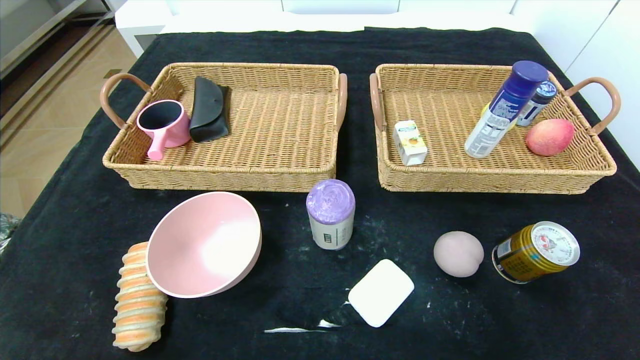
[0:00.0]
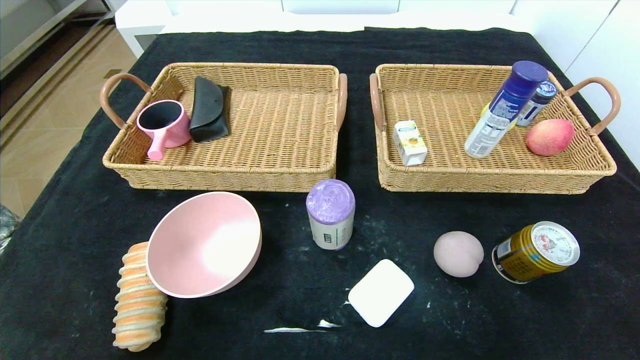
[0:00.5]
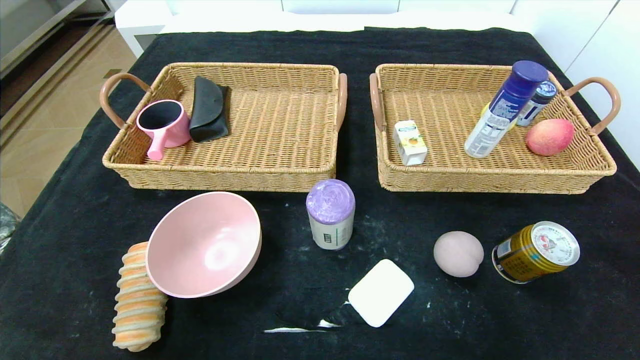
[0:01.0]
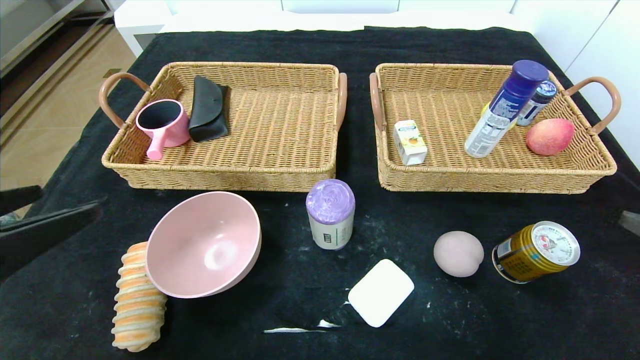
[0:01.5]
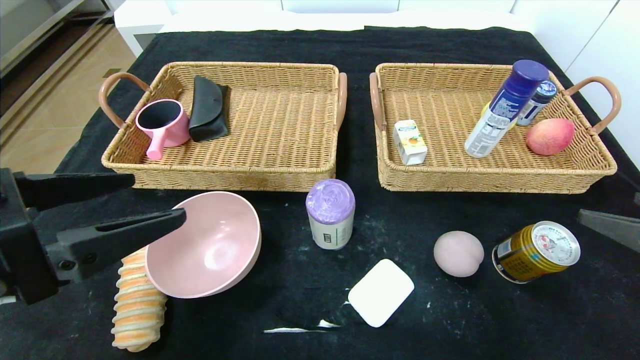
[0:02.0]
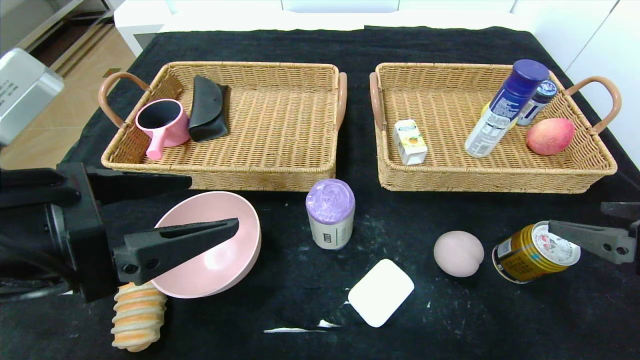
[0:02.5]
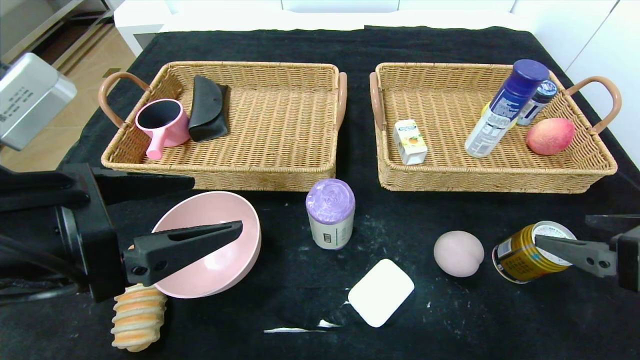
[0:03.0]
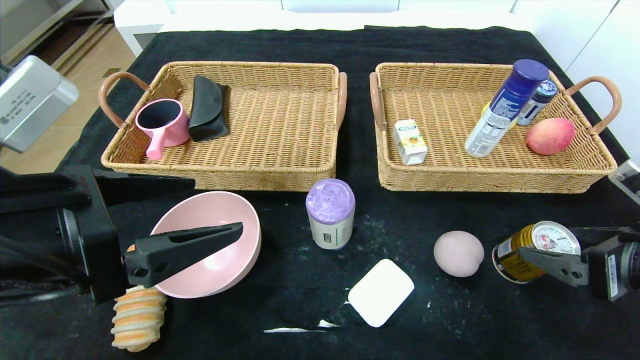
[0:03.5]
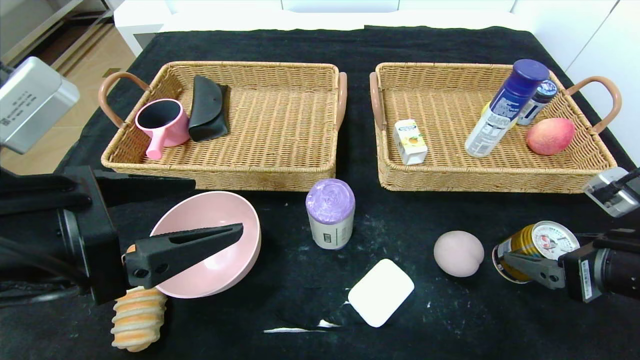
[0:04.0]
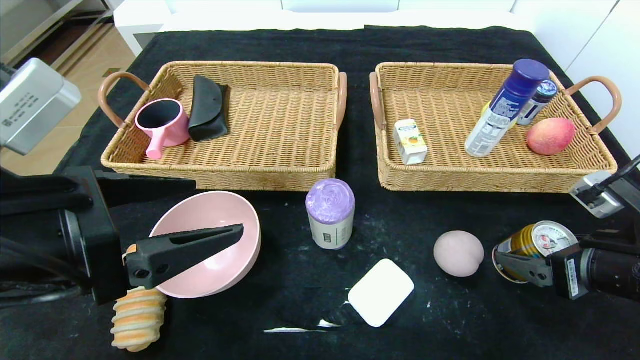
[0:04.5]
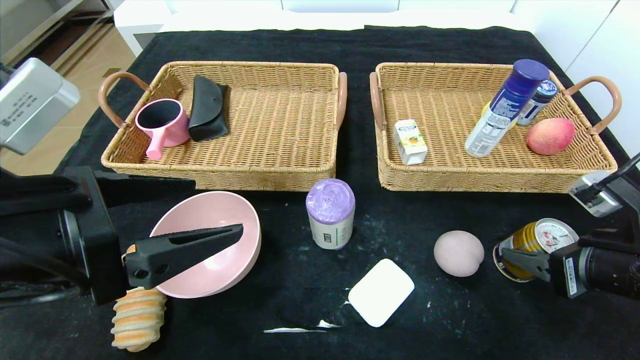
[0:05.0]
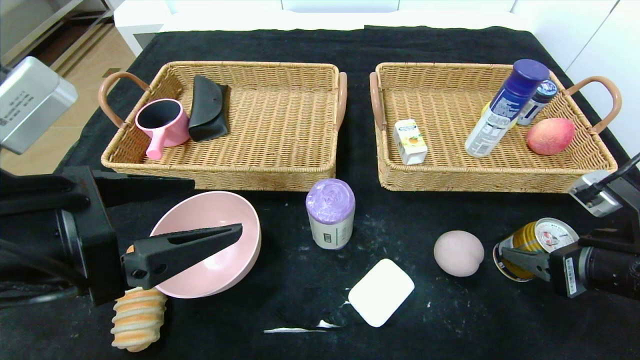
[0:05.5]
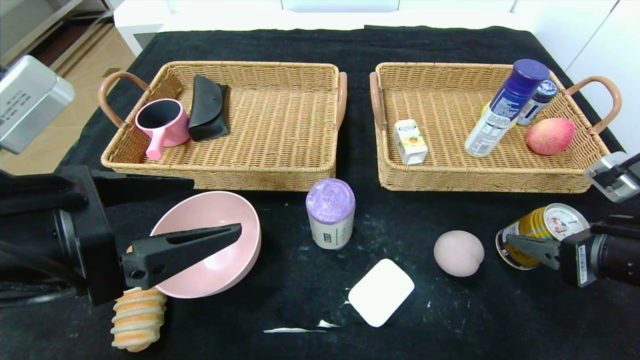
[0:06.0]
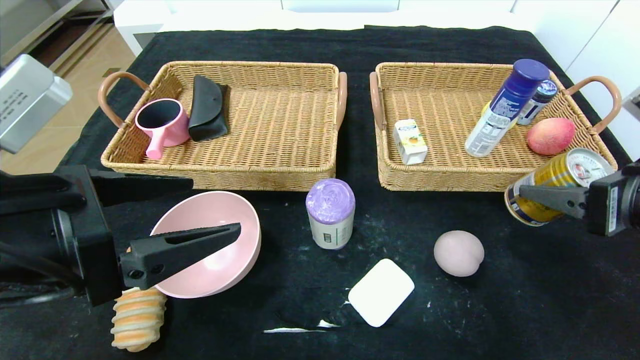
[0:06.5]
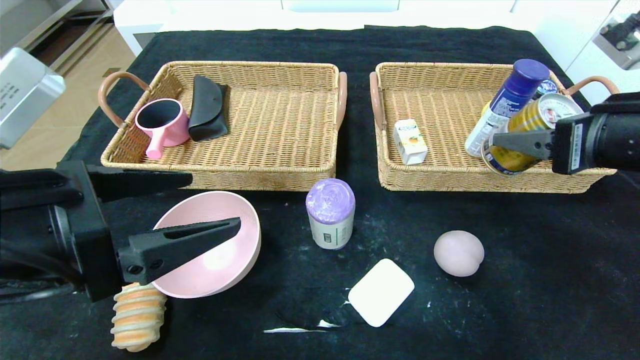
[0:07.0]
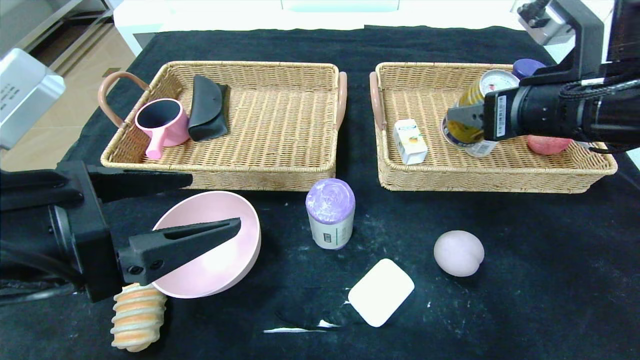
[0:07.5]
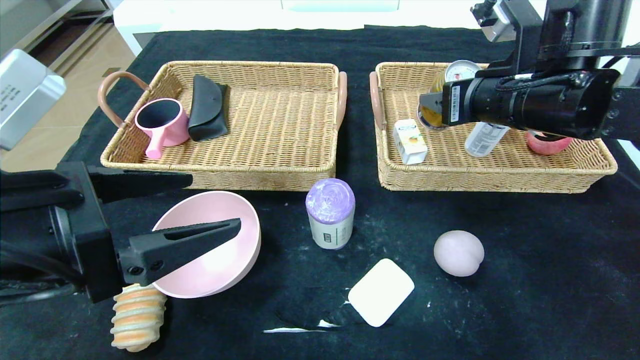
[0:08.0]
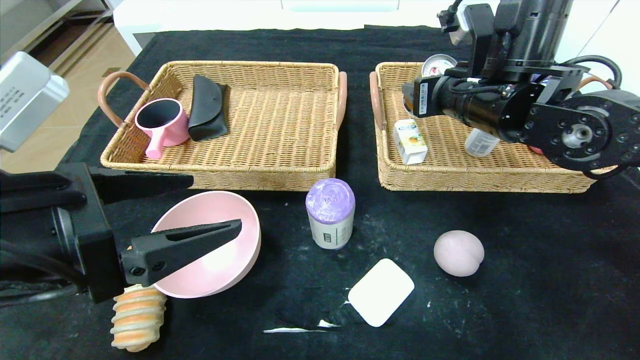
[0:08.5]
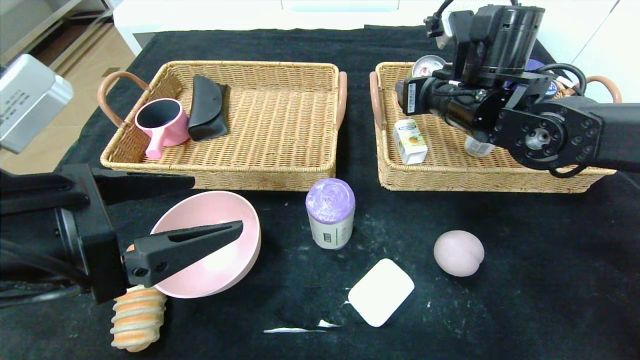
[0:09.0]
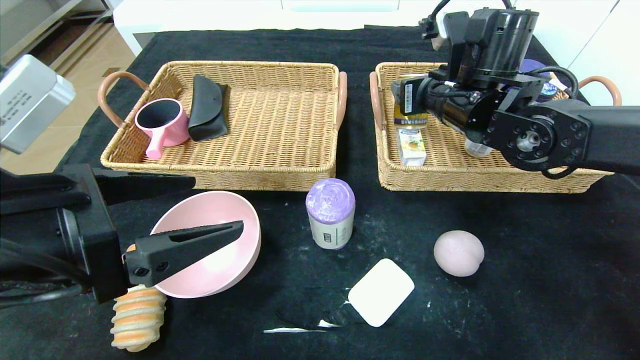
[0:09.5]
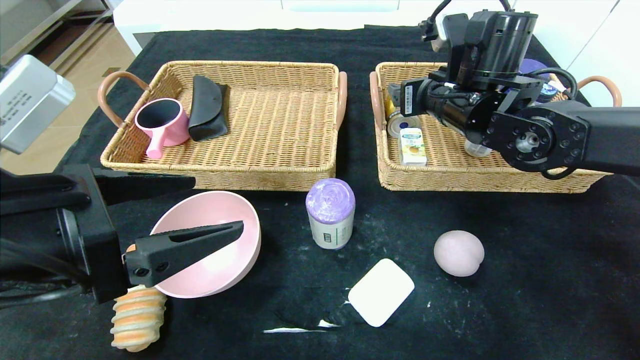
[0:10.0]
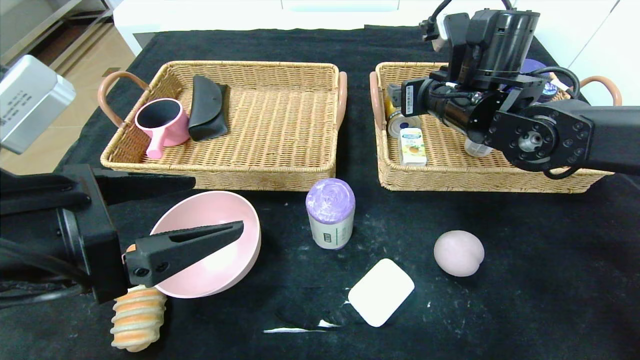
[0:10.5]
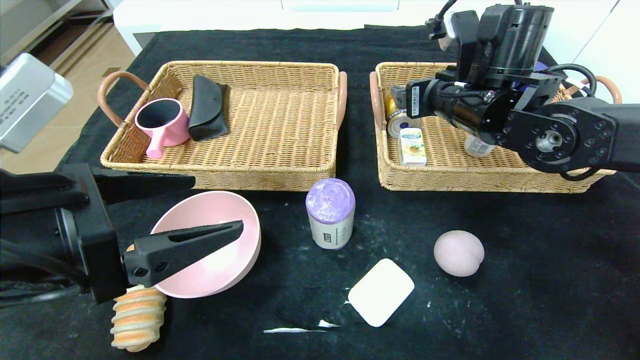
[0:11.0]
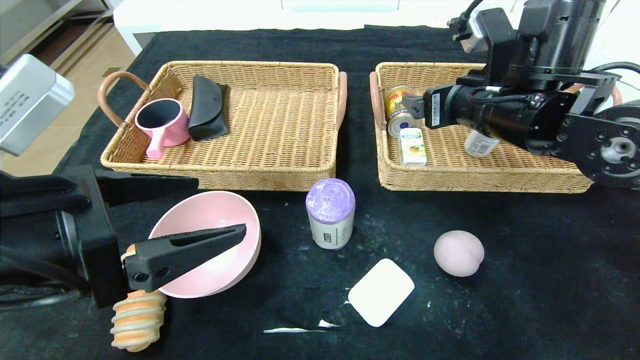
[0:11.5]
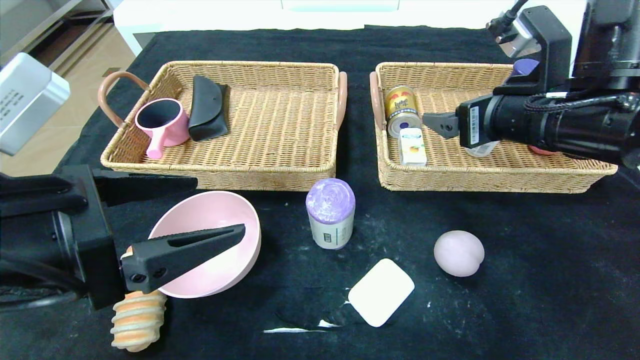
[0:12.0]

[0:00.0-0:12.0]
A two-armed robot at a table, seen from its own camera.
Step, 0:00.0 to 0:09.5: Grasp the Red Bull and put it in the right basket.
0:00.0 to 0:02.0: The two grippers go roughly 25 cm upward and forward.
0:02.0 to 0:04.0: The right gripper heads downward, covering approximately 5 cm.
0:04.0 to 0:06.0: The grippers make only small movements.
0:06.0 to 0:08.0: The right gripper heads forward, to the left and upward, covering roughly 20 cm.
0:08.0 to 0:10.0: The right gripper goes approximately 5 cm forward.
0:10.0 to 0:12.0: The right gripper shifts approximately 10 cm backward and to the right.

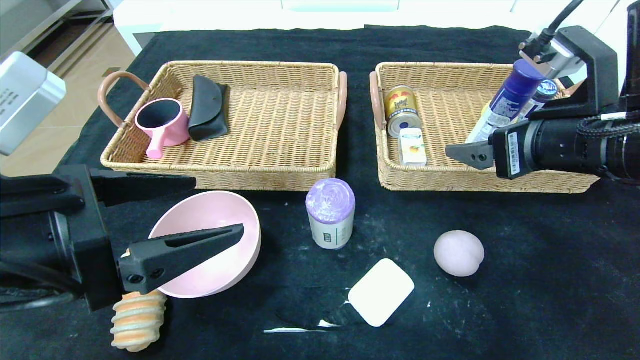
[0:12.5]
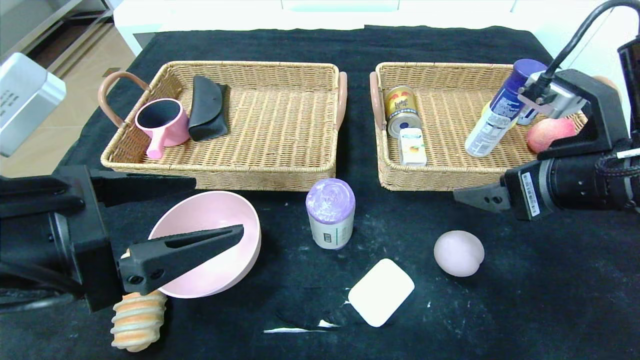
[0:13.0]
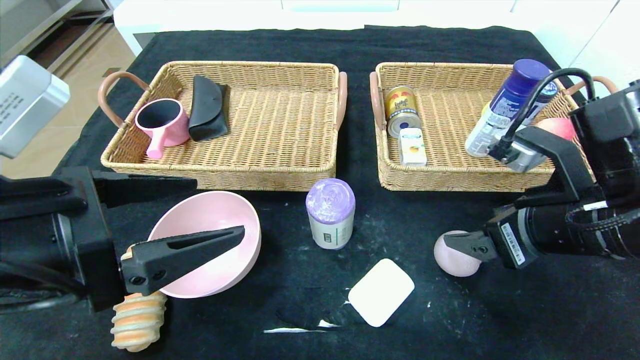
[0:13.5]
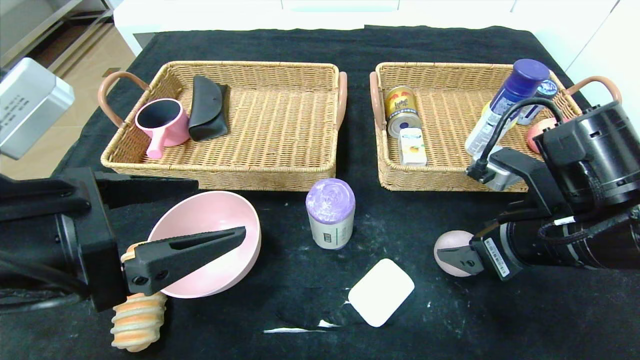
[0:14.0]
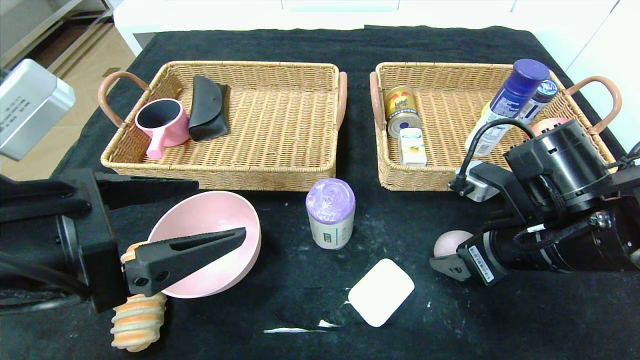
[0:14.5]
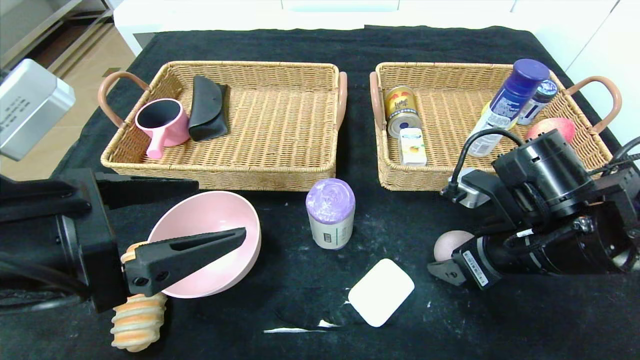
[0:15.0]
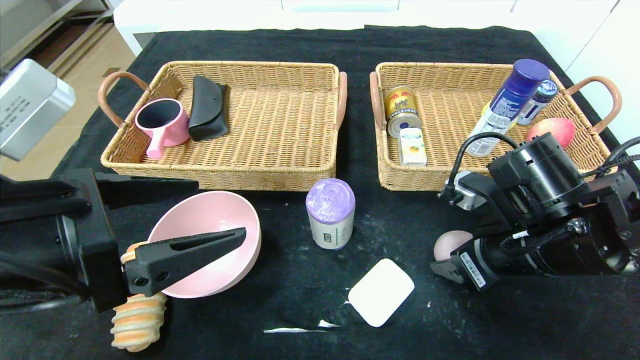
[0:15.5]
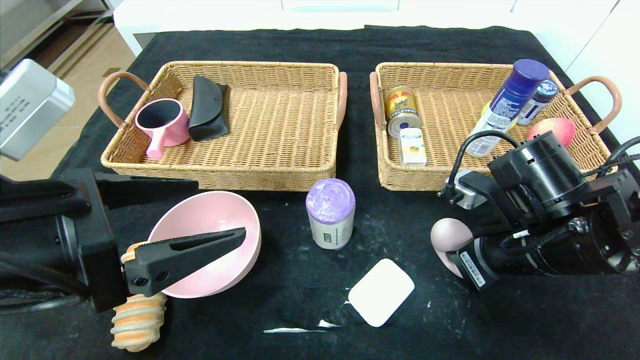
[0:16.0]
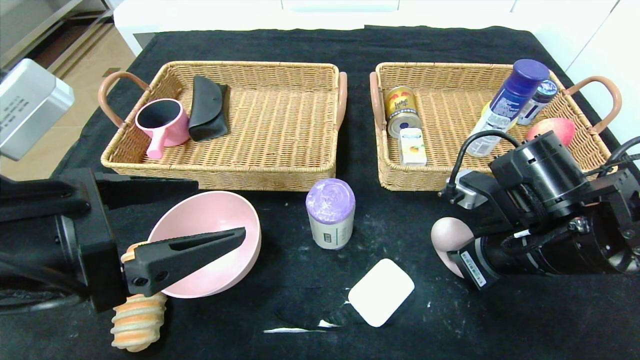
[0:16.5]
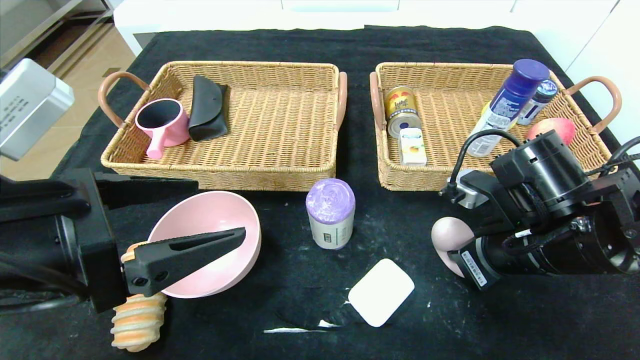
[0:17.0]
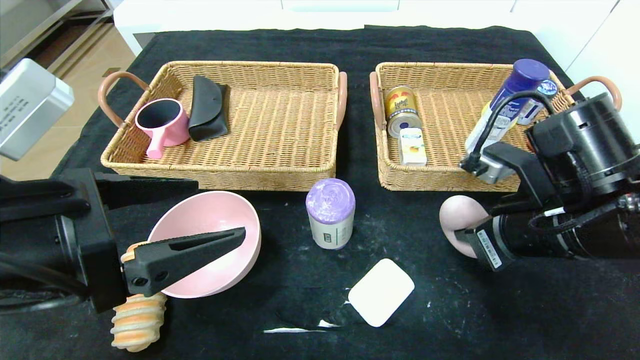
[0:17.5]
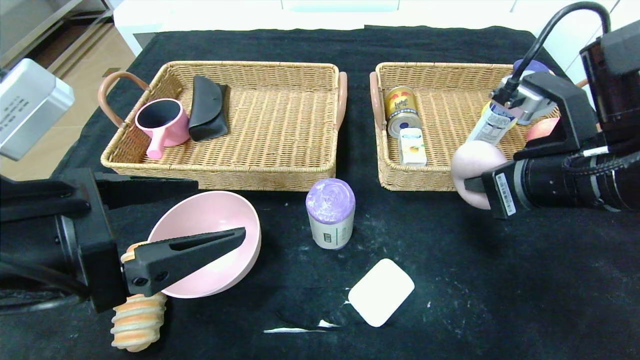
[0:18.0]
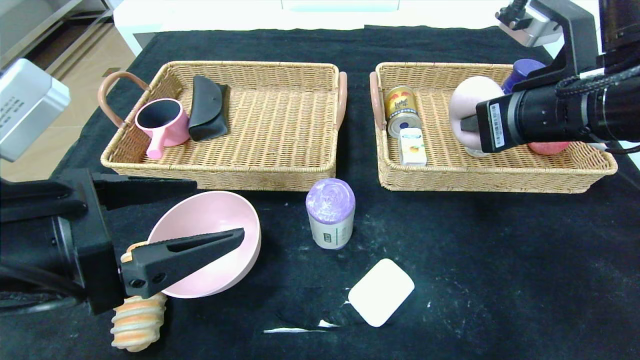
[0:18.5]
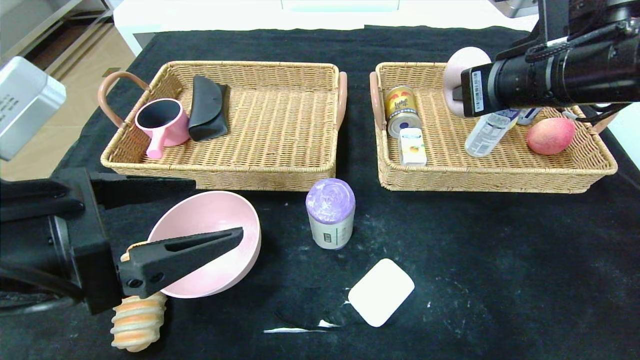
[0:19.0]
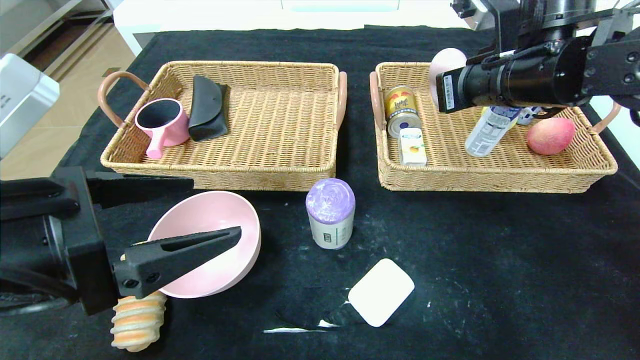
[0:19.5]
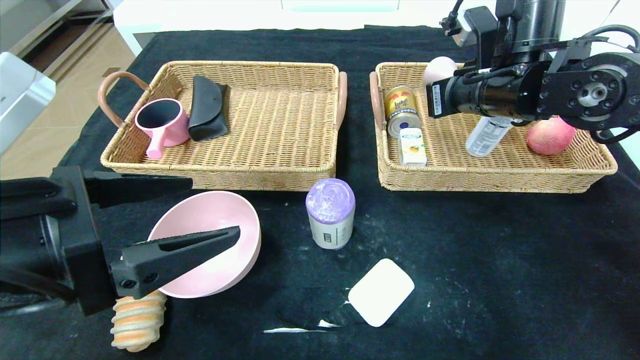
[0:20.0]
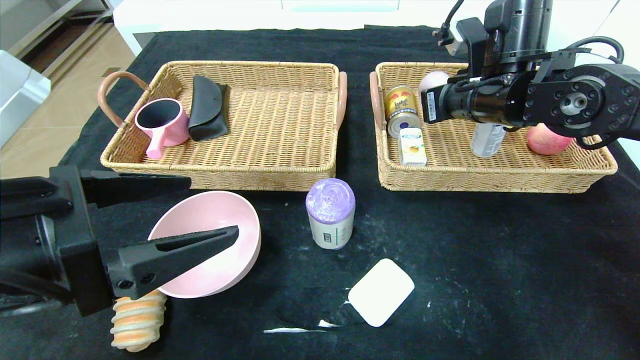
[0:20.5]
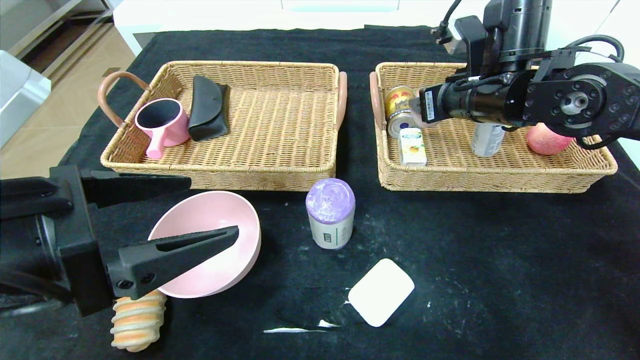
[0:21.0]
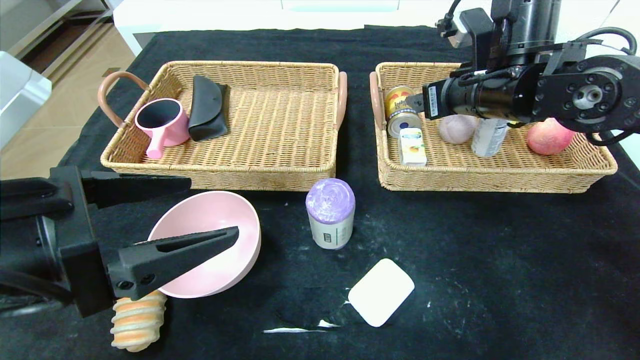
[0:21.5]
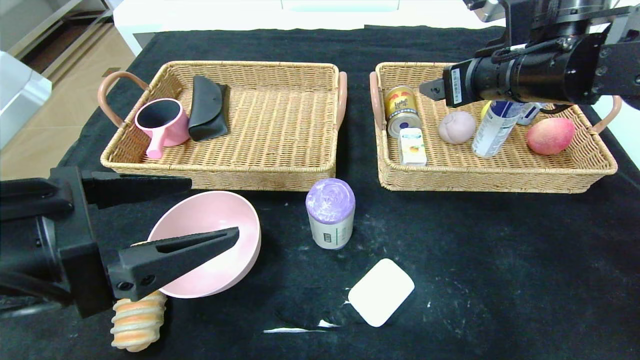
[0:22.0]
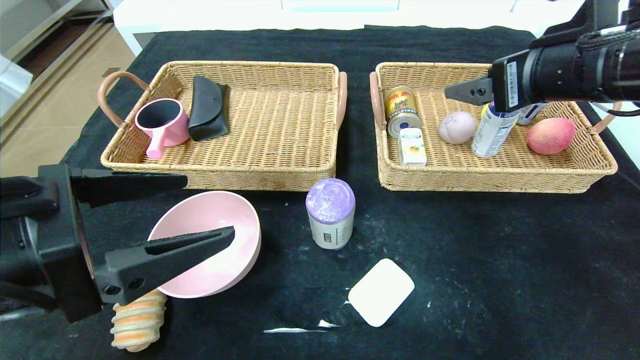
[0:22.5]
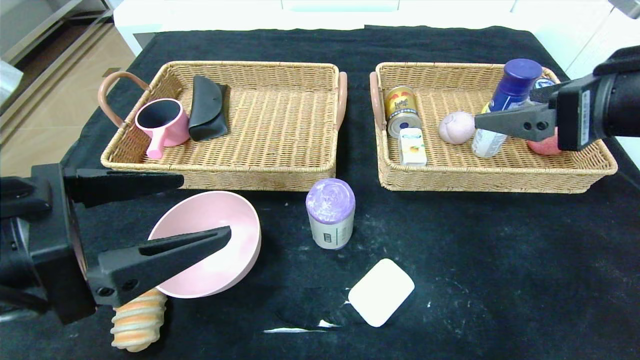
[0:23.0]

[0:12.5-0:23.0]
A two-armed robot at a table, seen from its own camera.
Step, 0:12.5 to 0:21.0: Grasp the peach and put it in the right basket.
0:12.5 to 0:14.5: The right gripper travels downward by some 10 cm.
0:14.5 to 0:16.5: The right gripper closes up.
0:16.5 to 0:19.0: The right gripper travels upward by approximately 15 cm.
0:19.0 to 0:21.0: The right gripper is displaced forward by roughly 10 cm, and opens its fingers.
0:21.0 to 0:23.0: The right gripper is displaced backward by approximately 15 cm.
